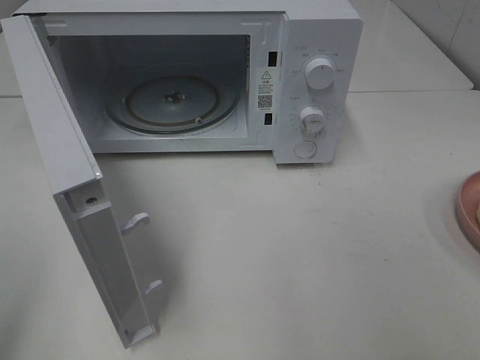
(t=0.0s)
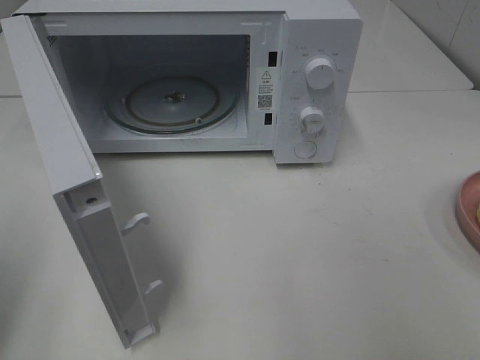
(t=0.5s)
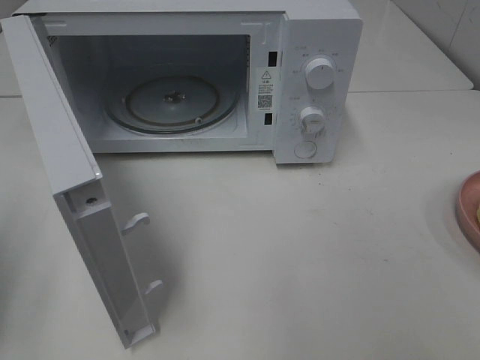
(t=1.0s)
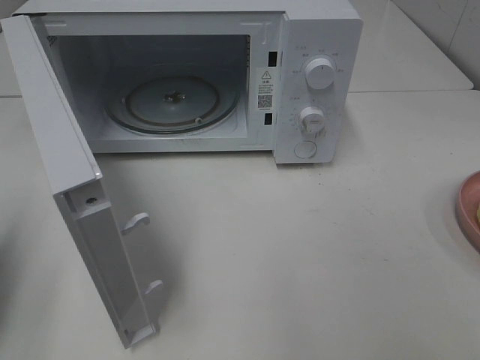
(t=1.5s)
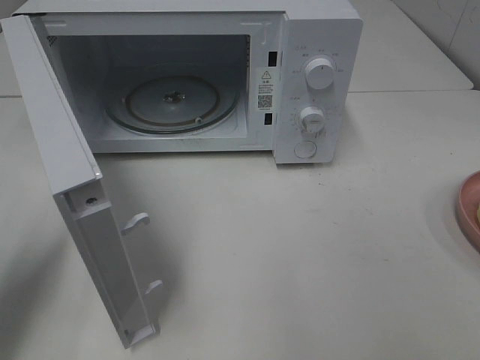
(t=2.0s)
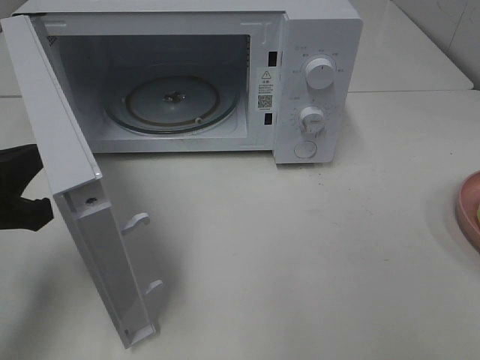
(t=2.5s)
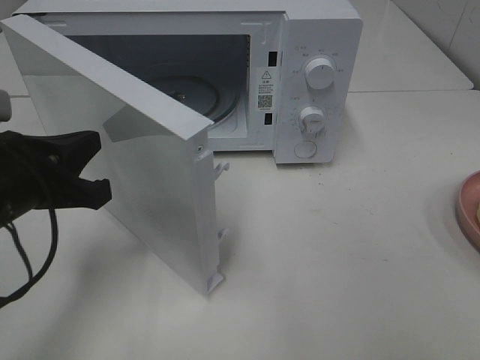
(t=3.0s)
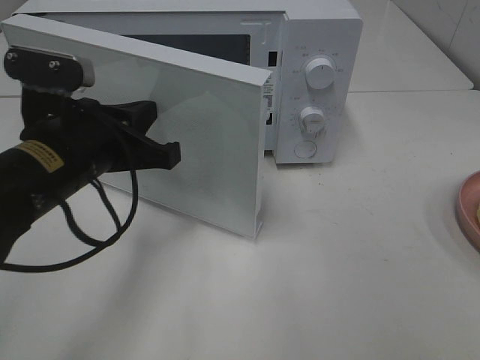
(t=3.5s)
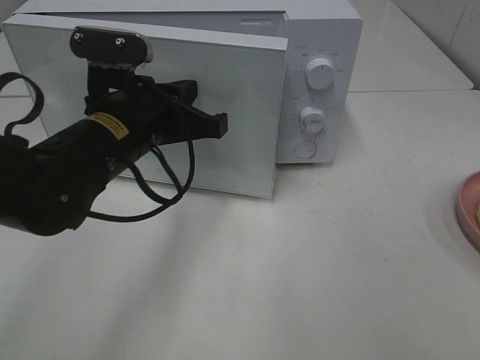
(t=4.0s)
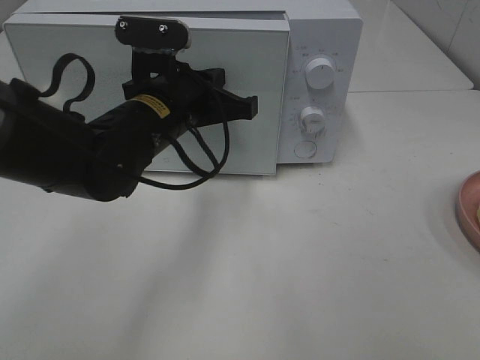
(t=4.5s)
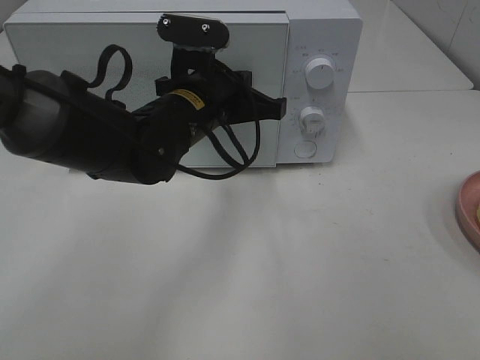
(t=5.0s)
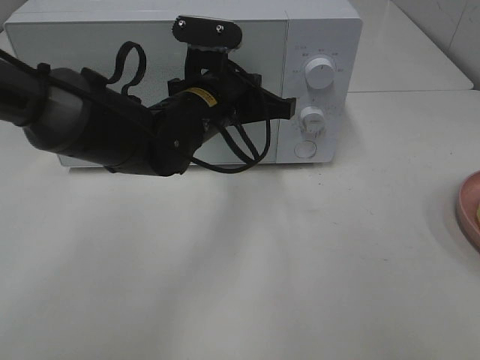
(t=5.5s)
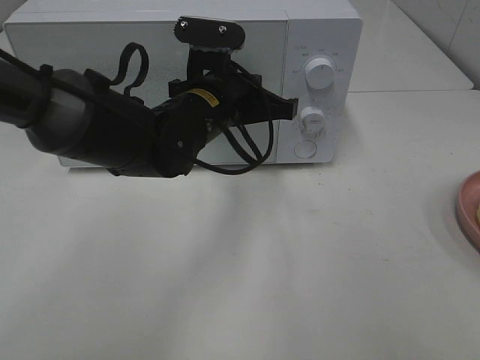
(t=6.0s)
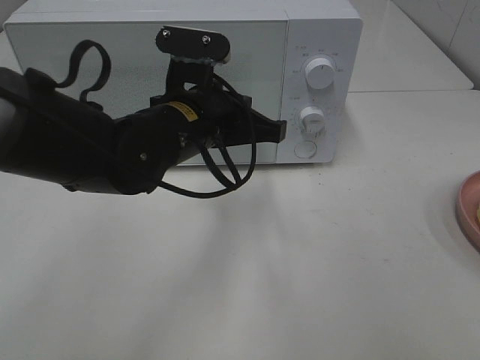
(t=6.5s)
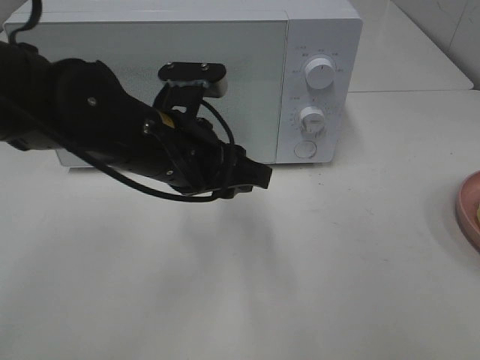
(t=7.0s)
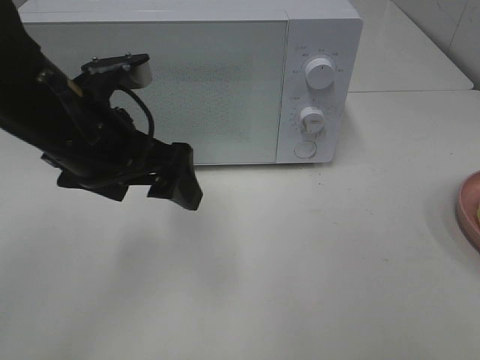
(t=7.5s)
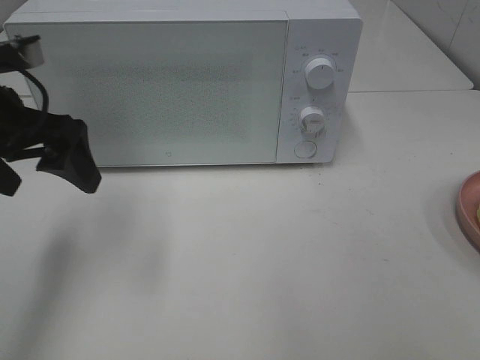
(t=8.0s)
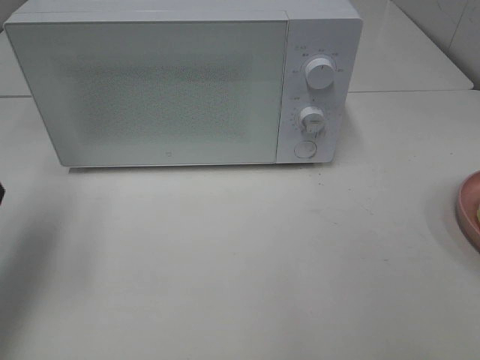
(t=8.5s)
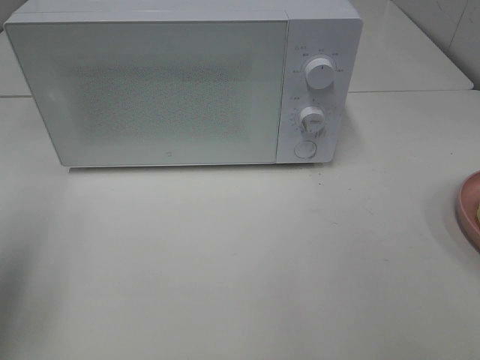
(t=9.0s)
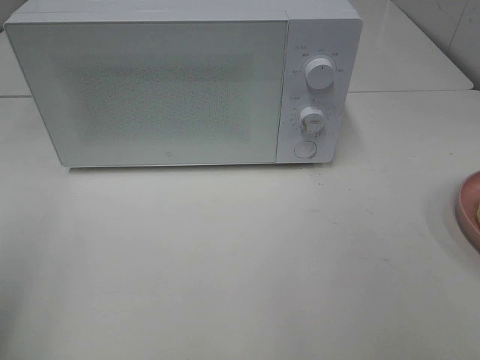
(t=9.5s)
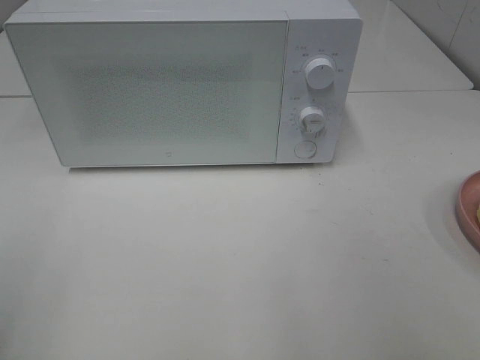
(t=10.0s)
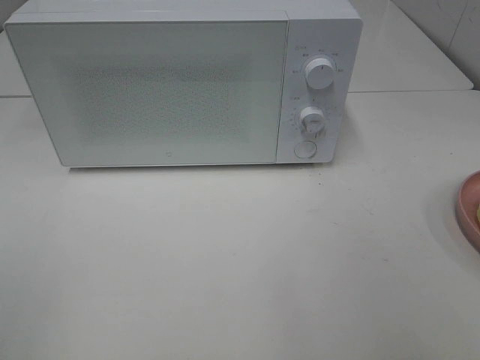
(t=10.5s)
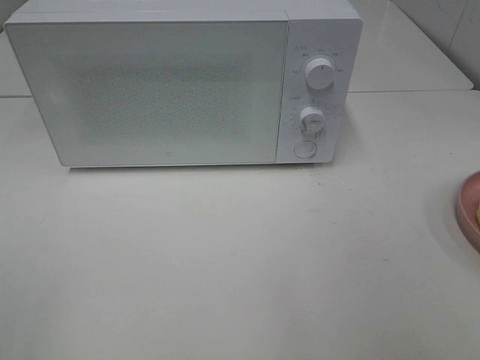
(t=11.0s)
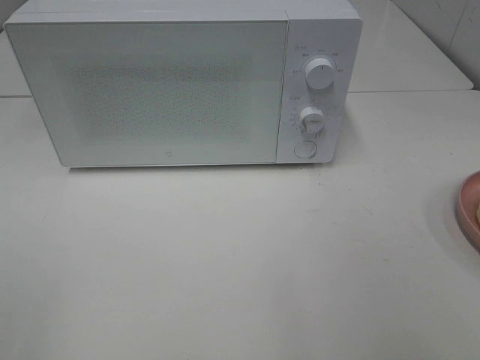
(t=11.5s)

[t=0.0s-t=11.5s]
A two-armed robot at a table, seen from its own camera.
Task of the whole recording: Heat Sandwich.
Step, t=0.0s to t=6.0s: Left hand: close the microwave door.
t=0.0s to t=2.0s: The left gripper moves forward and downward, approximately 15 cm, and closes up.
t=2.0s to t=4.0s: The left gripper is displaced to the right and forward by roughly 20 cm.
t=4.0s to t=6.0s: The left gripper shifts roughly 10 cm to the right and forward.
t=6.0s to t=7.5s: The left gripper heads to the left, backward and upward, covering approximately 15 cm, and opens its fingers.
t=7.5s to t=9.5s: The left gripper travels to the left and backward by approximately 25 cm.
